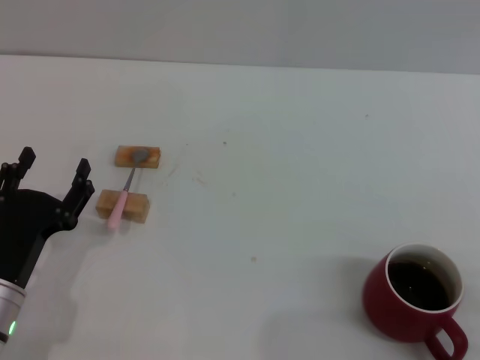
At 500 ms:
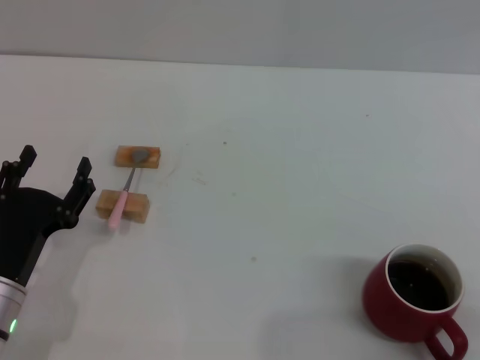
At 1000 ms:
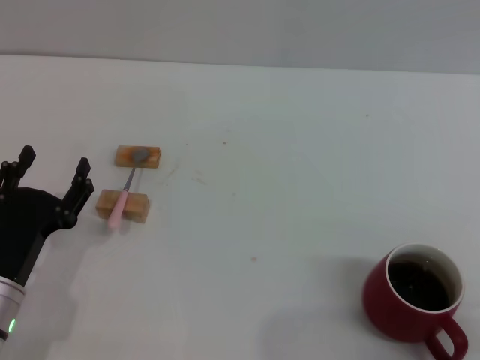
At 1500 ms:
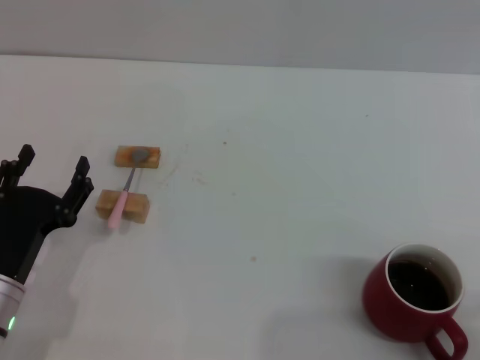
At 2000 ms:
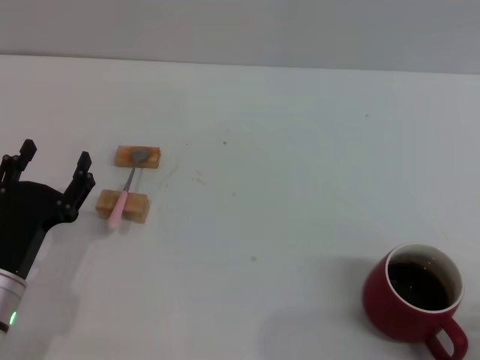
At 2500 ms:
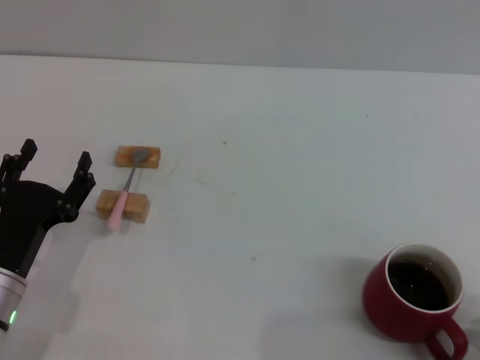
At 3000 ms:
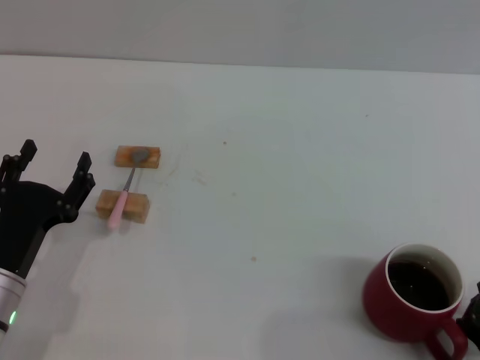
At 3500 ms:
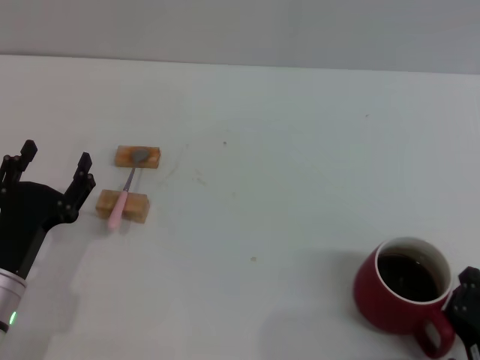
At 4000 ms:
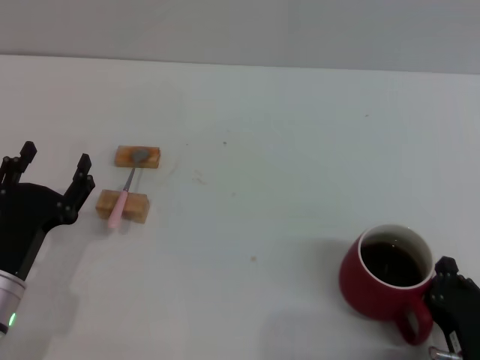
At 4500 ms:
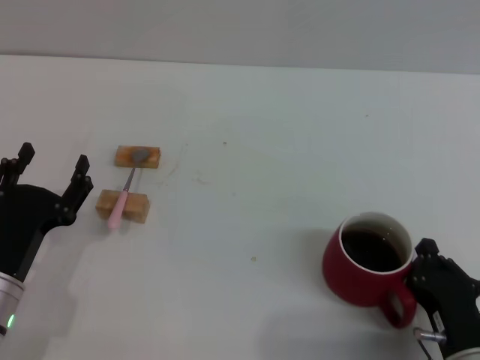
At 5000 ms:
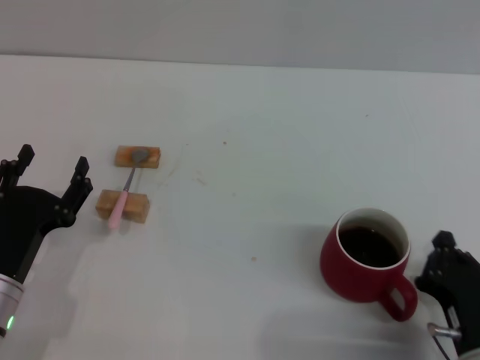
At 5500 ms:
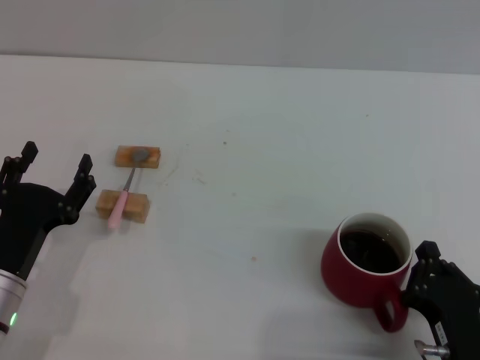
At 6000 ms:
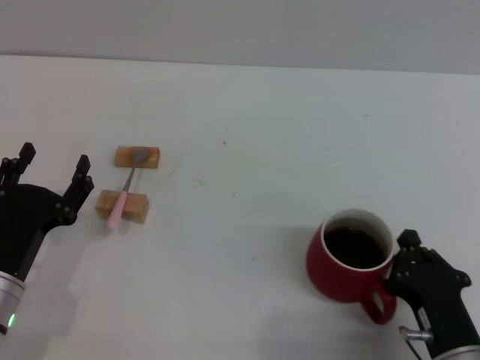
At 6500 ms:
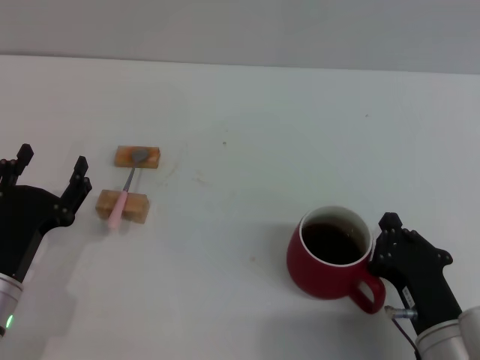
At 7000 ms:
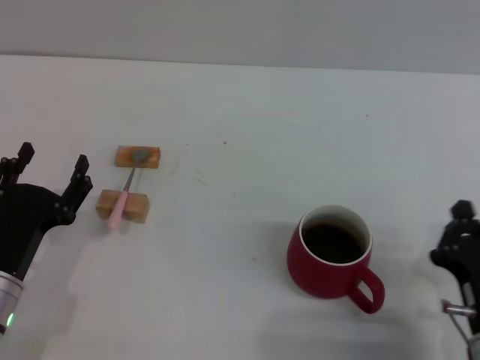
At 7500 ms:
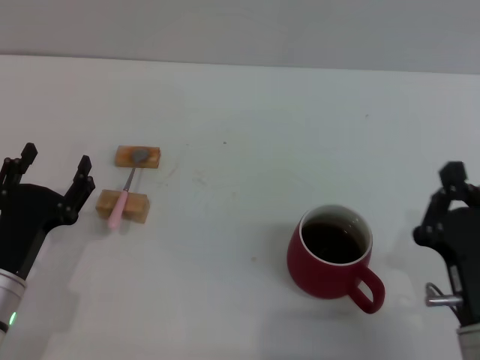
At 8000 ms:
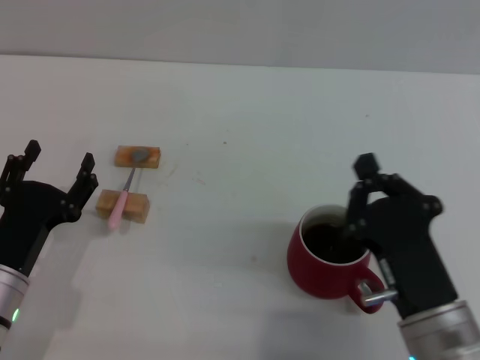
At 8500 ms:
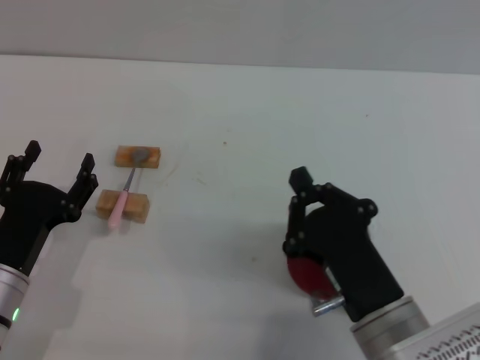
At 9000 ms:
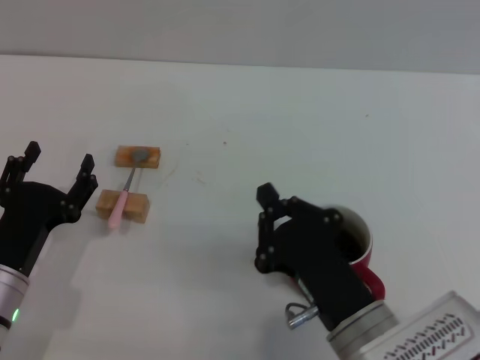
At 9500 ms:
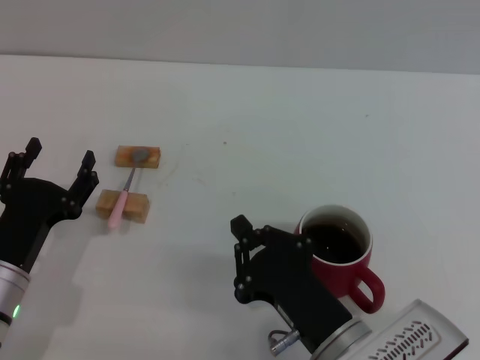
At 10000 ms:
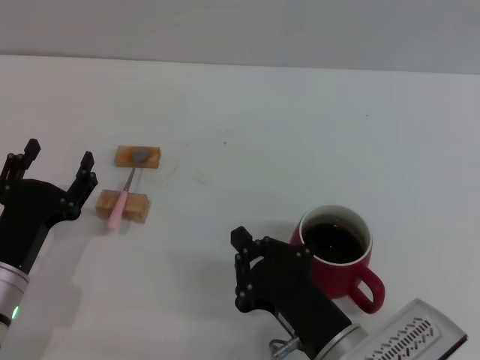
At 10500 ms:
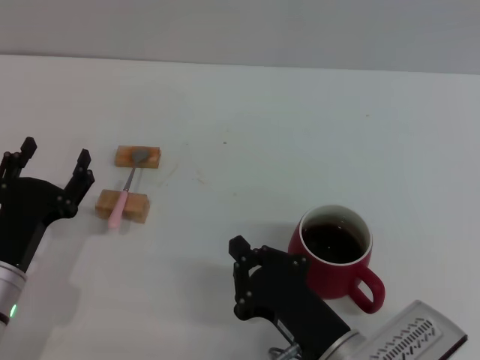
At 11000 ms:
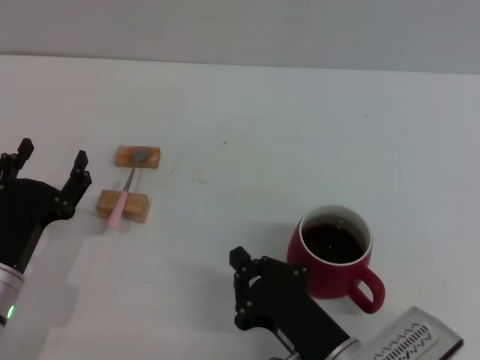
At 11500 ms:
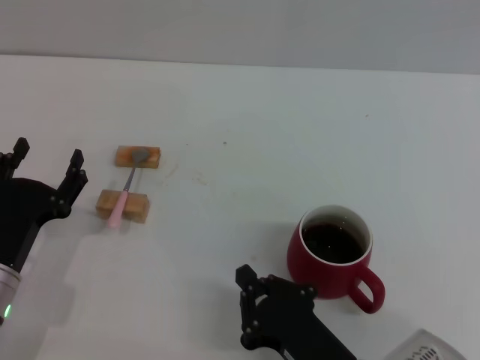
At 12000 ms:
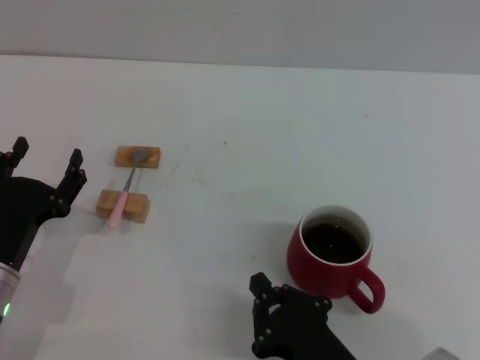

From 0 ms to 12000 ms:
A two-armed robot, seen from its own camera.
Task of the whole recording: Move the red cup to the center, lift the pink spoon, stir it three times in the cup, and put the spoon into the cup.
From 2000 ms to 4000 ms: The right gripper ends up some 5 cm from where it was.
From 4000 ms to 6000 ms: There are only small adjustments of the grippers.
From 6000 ms to 8000 ms: The right gripper heads upward, covering approximately 5 cm.
From 8000 ms to 10000 ms: The right gripper shifts roughly 5 cm to the left.
From 10000 ms to 12000 ms: The grippers move only a little.

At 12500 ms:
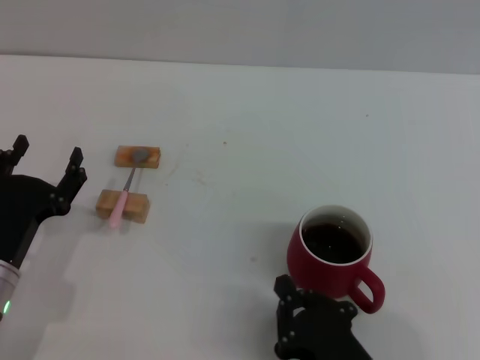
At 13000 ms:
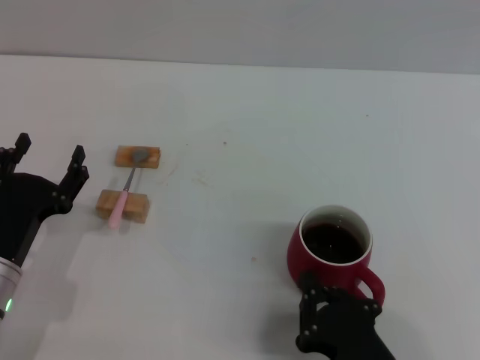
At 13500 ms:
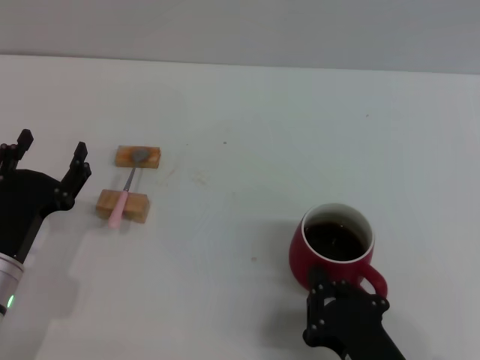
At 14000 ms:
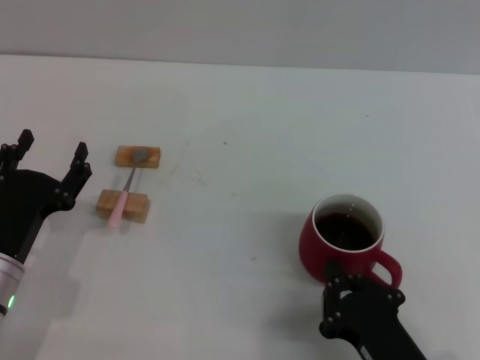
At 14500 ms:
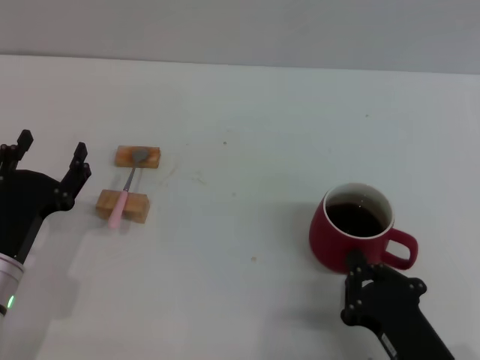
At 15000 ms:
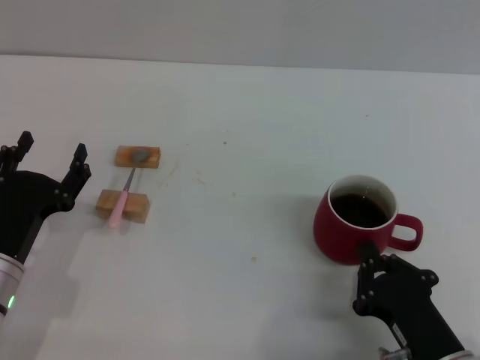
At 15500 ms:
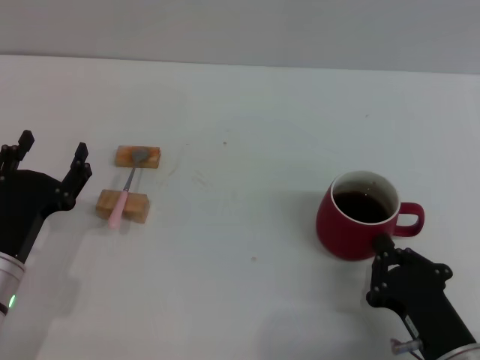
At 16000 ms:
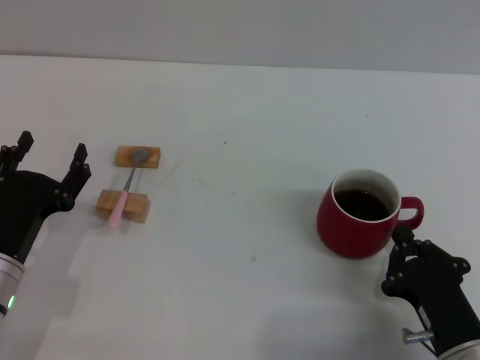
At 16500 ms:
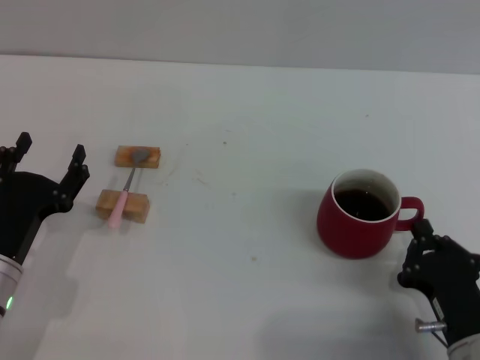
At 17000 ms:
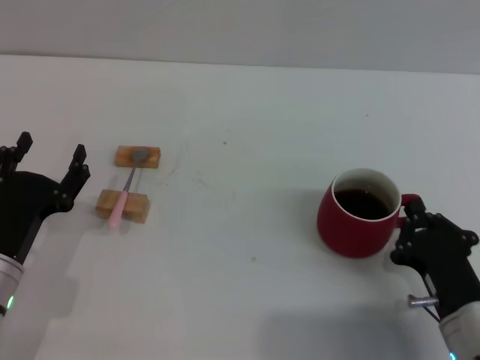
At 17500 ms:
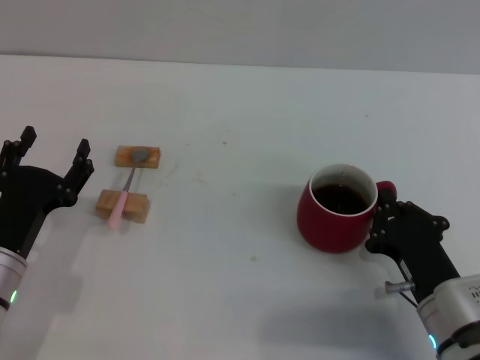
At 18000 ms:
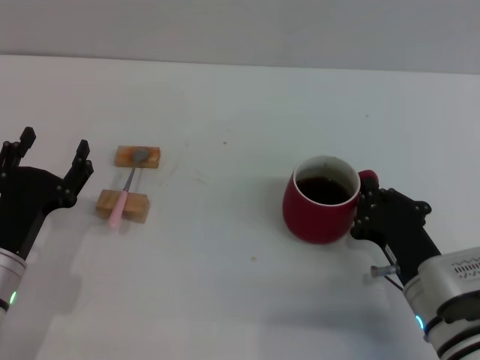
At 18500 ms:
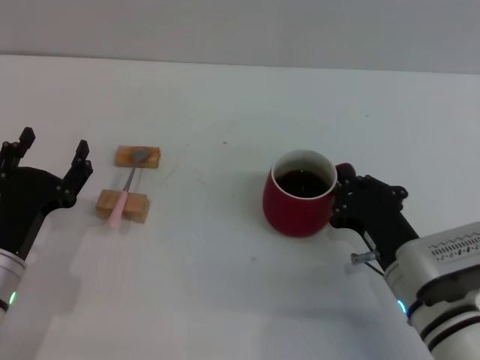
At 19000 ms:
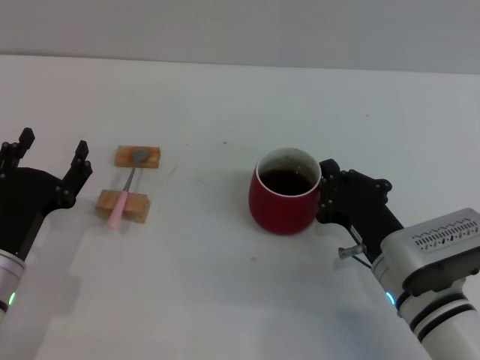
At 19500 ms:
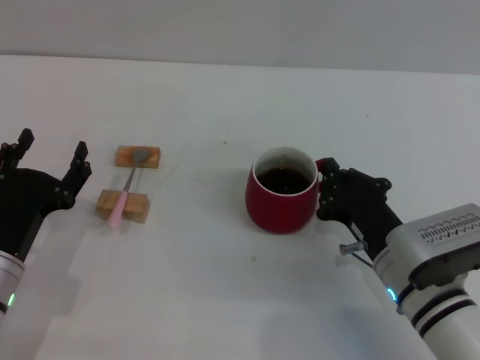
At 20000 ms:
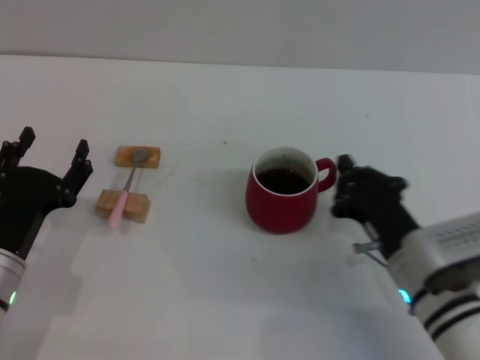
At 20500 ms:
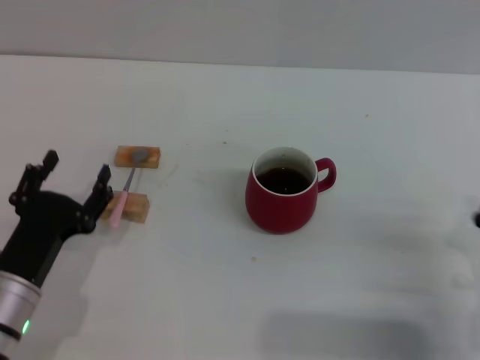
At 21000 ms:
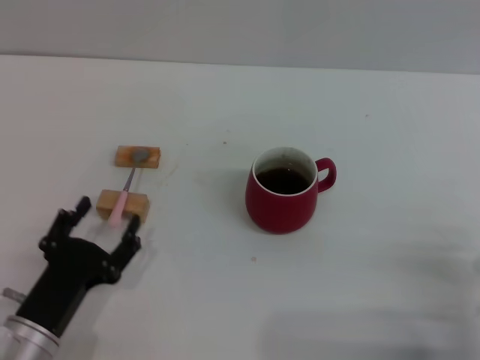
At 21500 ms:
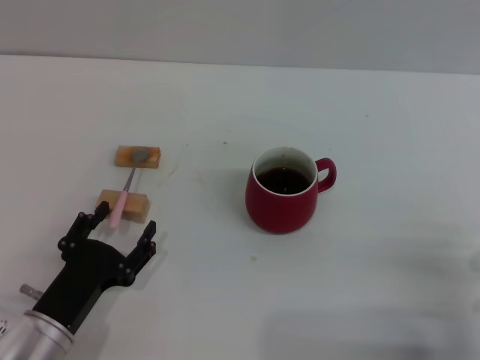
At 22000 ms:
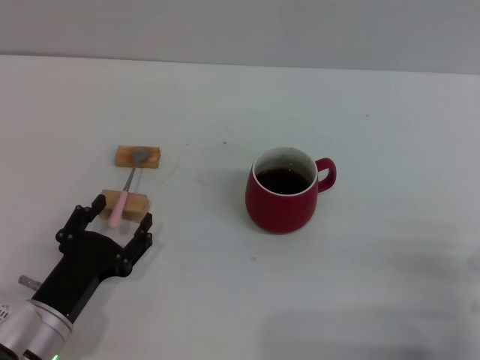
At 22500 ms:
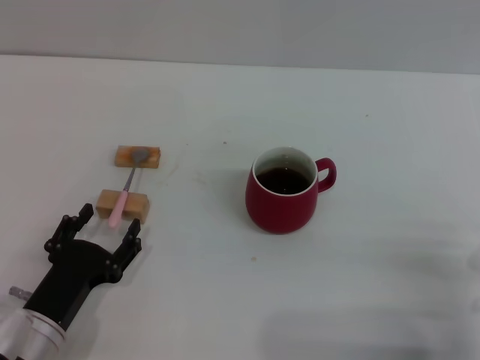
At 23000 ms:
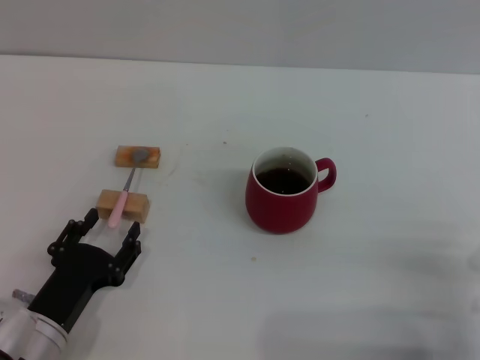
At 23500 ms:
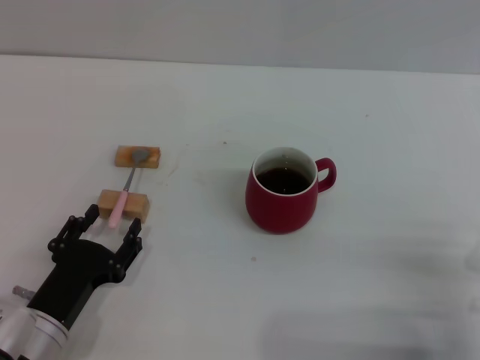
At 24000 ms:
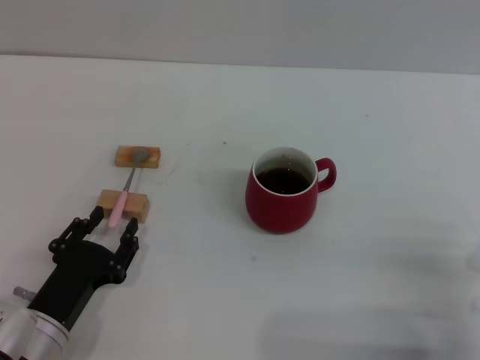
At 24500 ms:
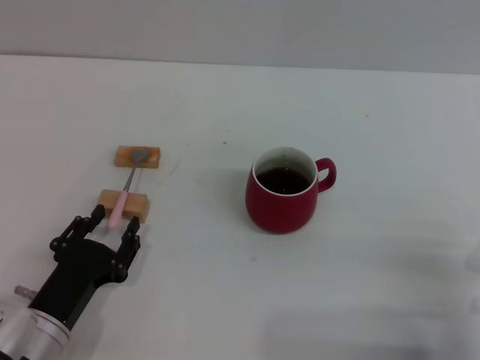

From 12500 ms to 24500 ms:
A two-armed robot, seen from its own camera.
Task of the whole recording: Move the red cup to the center, lift the pink spoon, stir it three times in the cup, and put the spoon into the cup.
Step, from 12500 ms to 21000 ms: Move the cup with coffee to the center of view with the right gripper.
From 12500 ms to 14500 ms: The right gripper ends up roughly 5 cm from where it was.
From 14500 ms to 16500 ms: The grippers stay close to where they were, moving slightly.
From 16500 ms to 18500 ms: The right gripper shifts approximately 10 cm forward.
From 18500 ms to 20500 ms: The right gripper shifts approximately 10 cm to the right.
From 20500 ms to 22500 ms: There are only small adjustments of the grippers.
From 22500 ms to 24500 ms: Both grippers stay put.

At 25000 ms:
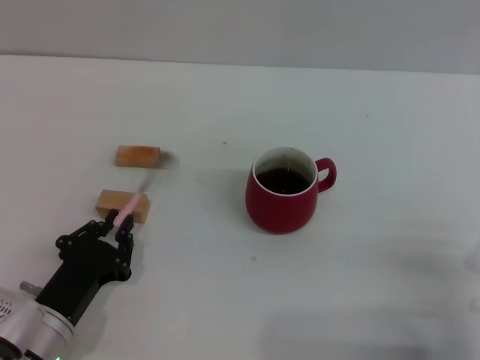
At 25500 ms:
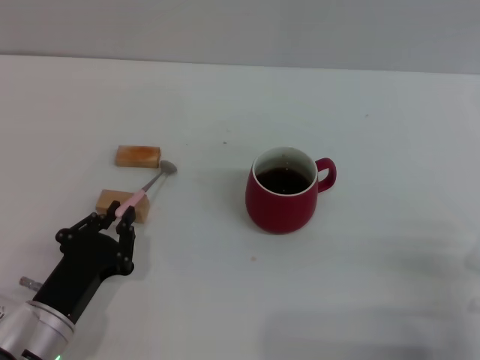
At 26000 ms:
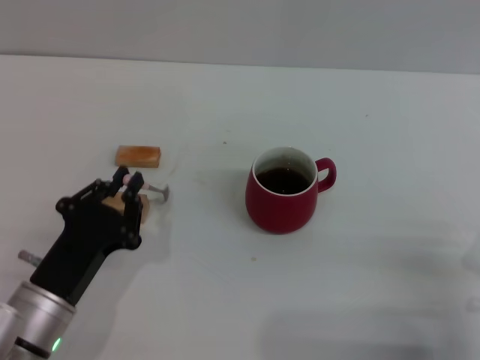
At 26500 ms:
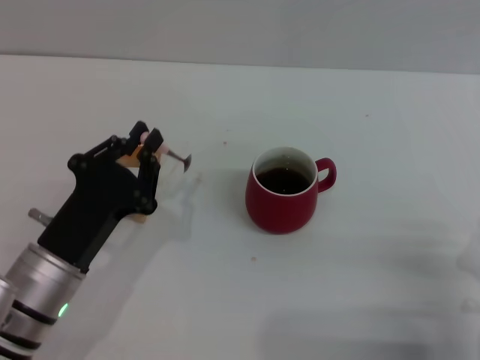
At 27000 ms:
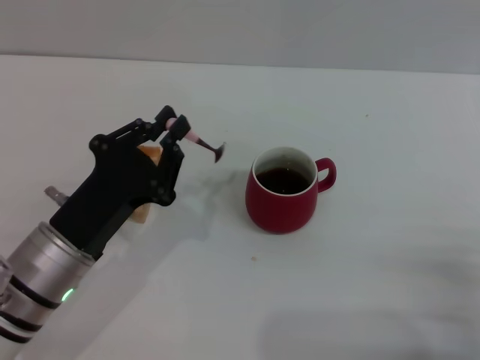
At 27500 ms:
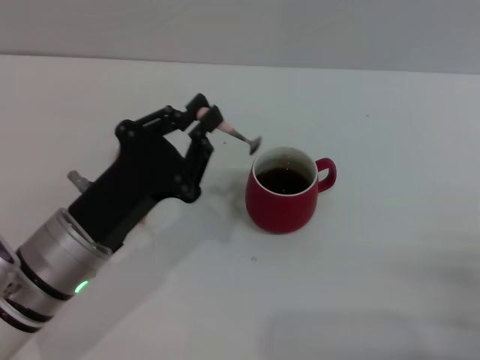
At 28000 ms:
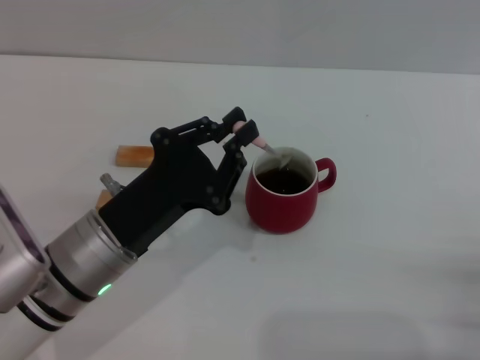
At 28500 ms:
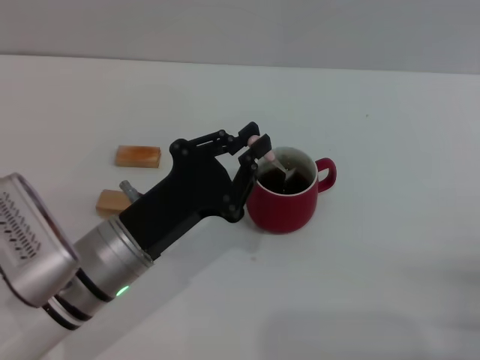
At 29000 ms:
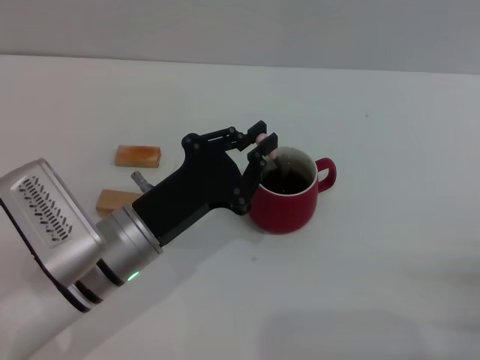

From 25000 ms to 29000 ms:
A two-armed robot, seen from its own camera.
Task of the whole recording: Move the red cup to the center, lift the pink spoon, stir it three times in the cup, and put the spoon into the cup.
From 25000 ms to 27000 ms: The left gripper is displaced upward by about 10 cm, and closes its fingers.
From 27000 ms to 29000 ms: The left gripper moves about 5 cm.
